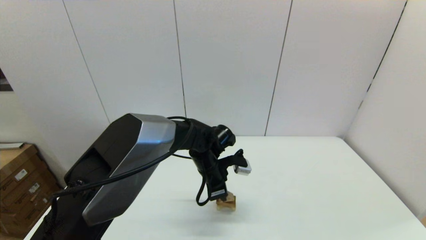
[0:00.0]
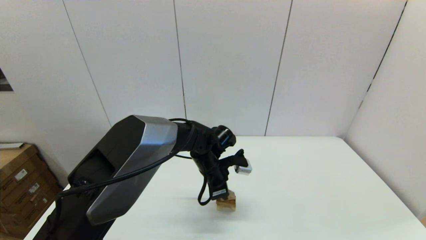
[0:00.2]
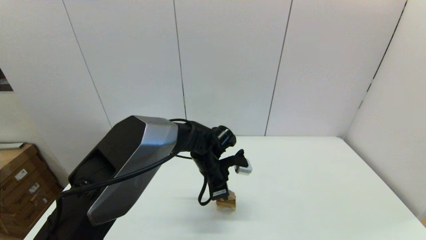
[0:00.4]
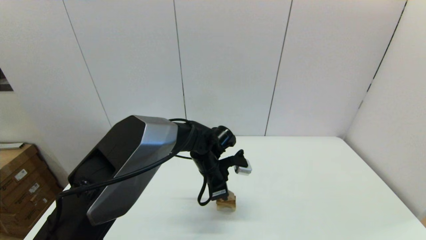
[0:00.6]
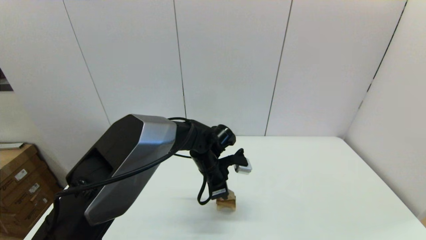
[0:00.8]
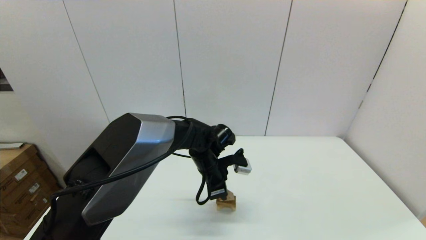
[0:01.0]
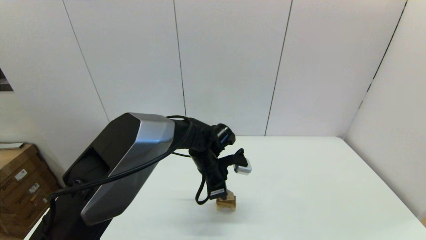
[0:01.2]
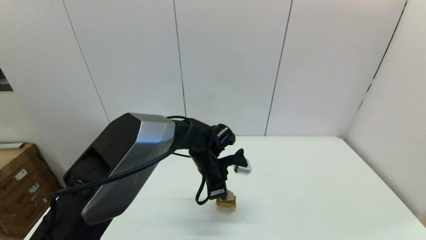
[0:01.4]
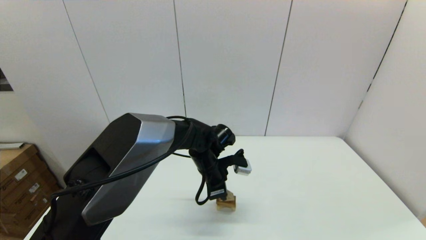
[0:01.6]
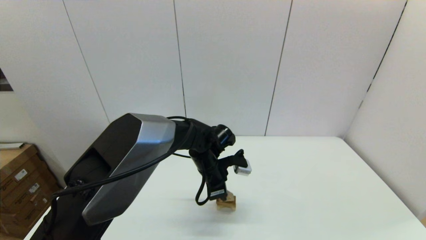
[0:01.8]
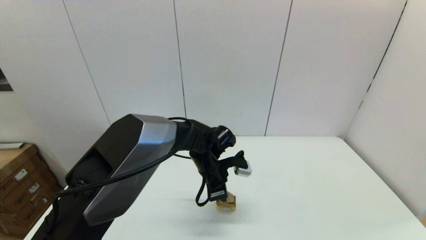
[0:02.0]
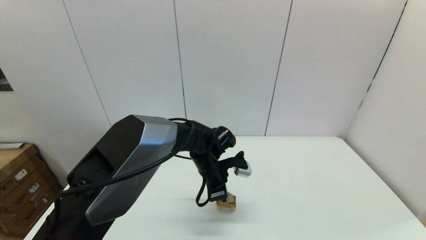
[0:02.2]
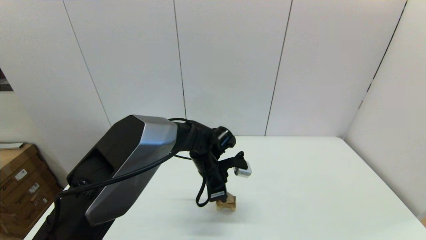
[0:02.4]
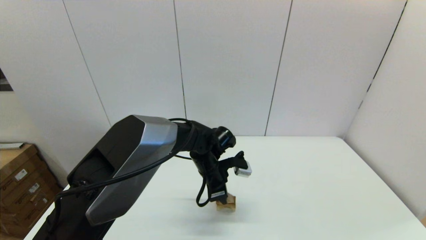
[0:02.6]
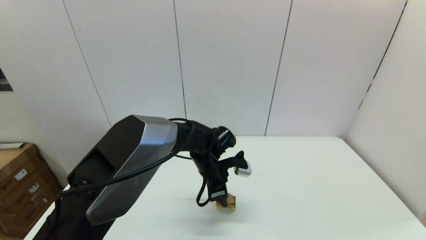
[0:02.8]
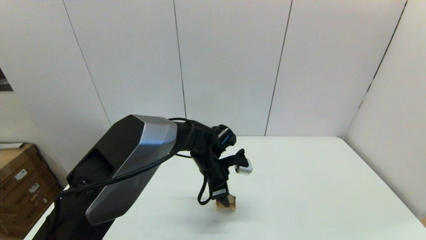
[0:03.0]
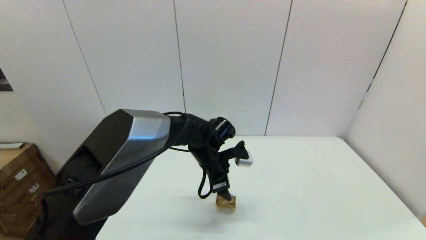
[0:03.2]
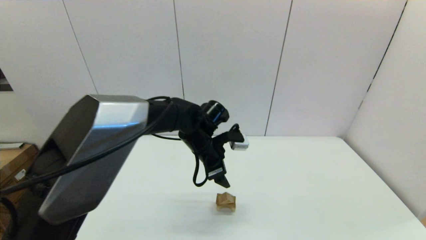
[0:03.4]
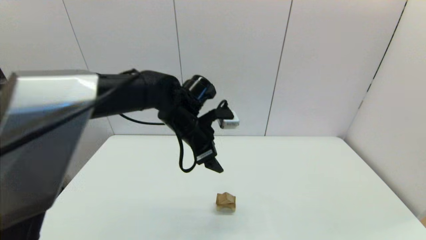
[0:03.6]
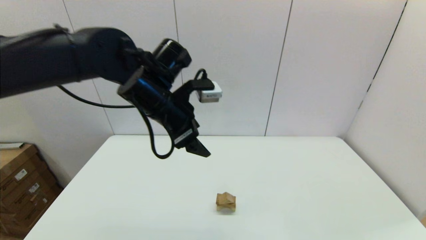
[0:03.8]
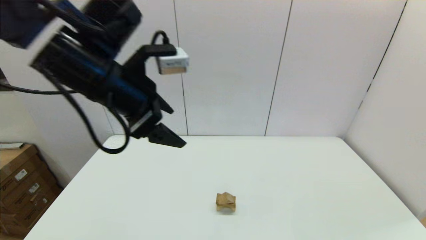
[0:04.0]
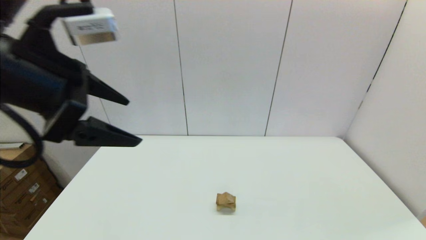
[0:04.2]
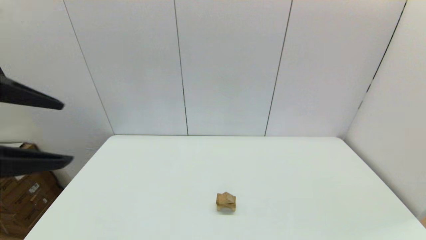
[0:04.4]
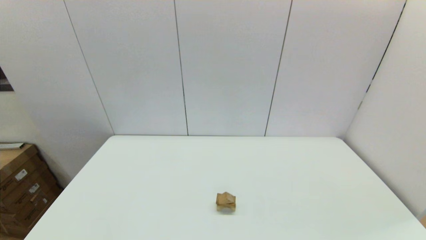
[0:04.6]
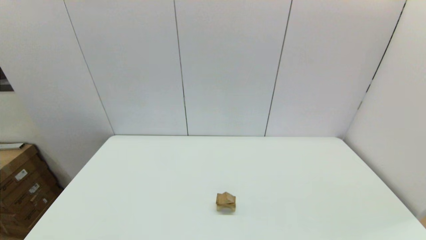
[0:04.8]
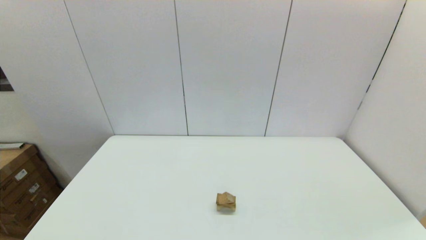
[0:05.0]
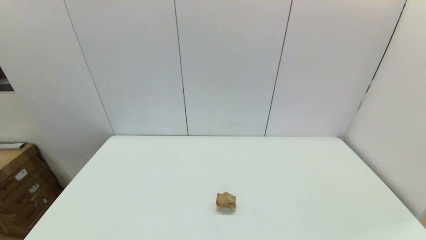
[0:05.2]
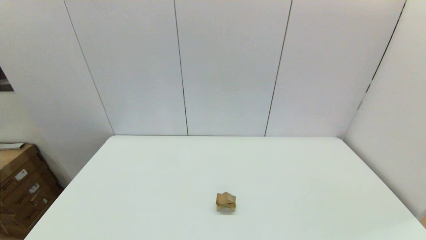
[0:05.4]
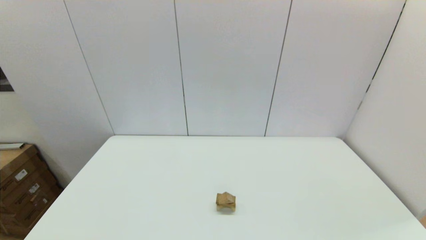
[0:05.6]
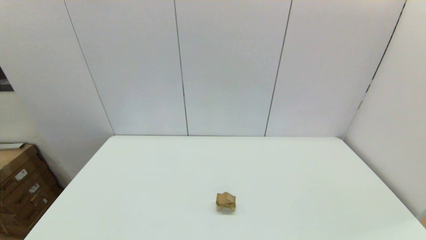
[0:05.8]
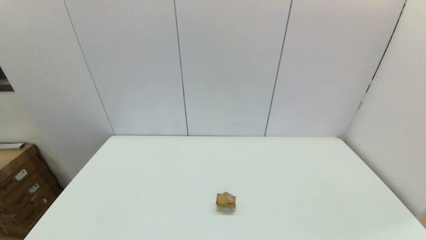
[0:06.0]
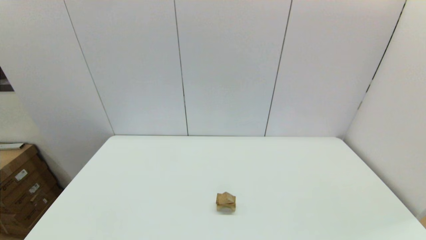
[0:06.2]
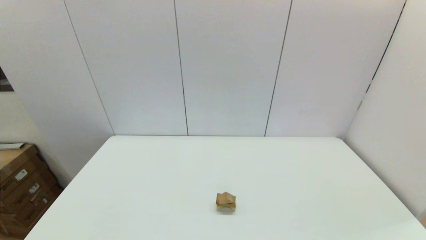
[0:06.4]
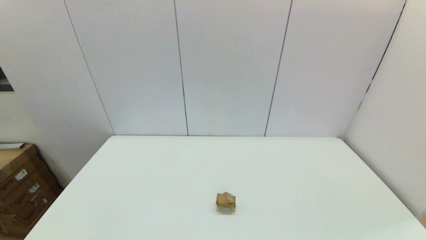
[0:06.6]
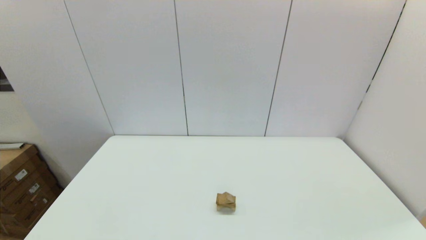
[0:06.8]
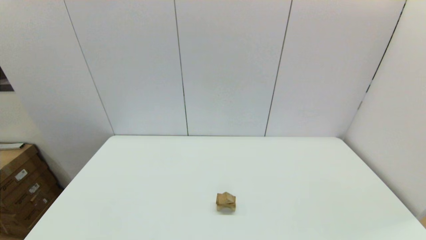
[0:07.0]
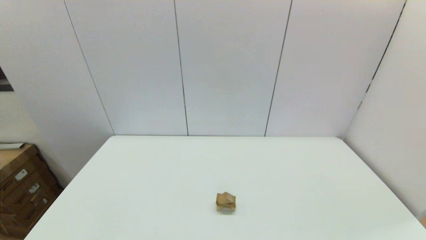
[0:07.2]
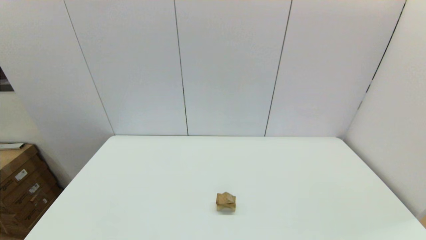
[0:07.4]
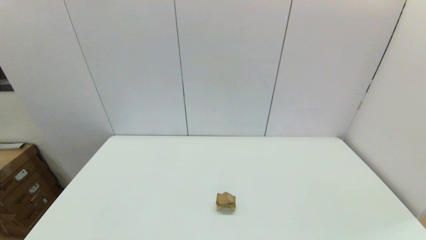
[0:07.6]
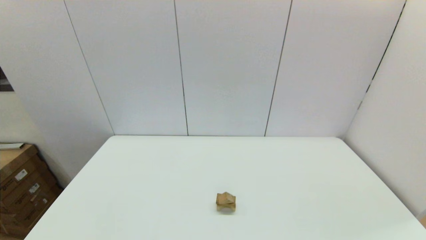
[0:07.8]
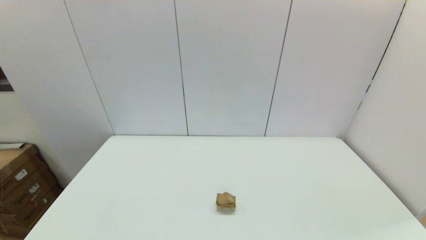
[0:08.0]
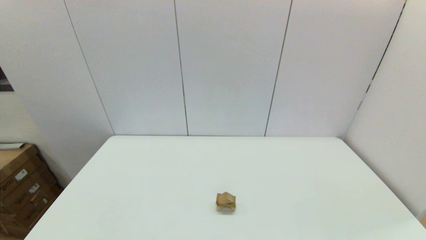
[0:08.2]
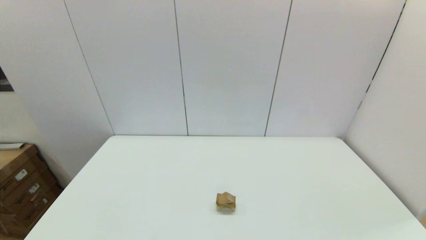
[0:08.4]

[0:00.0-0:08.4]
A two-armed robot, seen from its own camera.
Task of the whole recording: place the arched building blocks in the center of the table, set up the rectangular building blocks, and then set up the triangular building blocks.
0:00.0 to 0:01.4: The two grippers keep their place.
0:01.4 to 0:02.8: The left gripper opens its fingers.
0:02.8 to 0:04.2: The left gripper travels upward, to the left and backward by roughly 40 cm, and opens.
0:04.2 to 0:05.6: The left gripper moves backward, downward and to the left, approximately 30 cm.
0:07.0 to 0:08.4: Both grippers stay about where they are.
